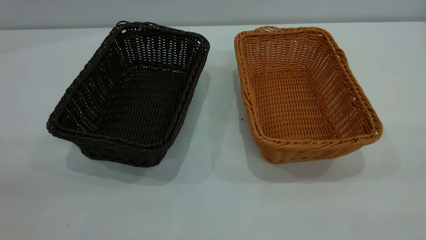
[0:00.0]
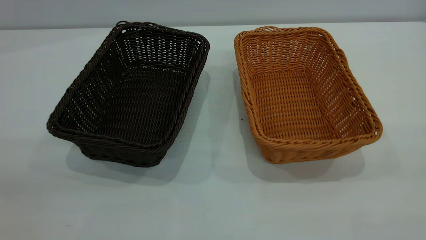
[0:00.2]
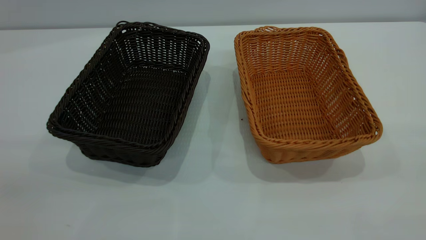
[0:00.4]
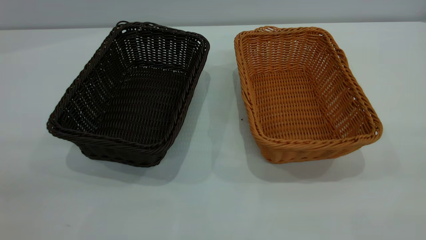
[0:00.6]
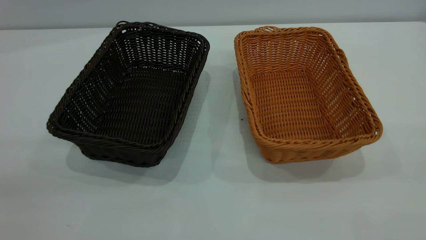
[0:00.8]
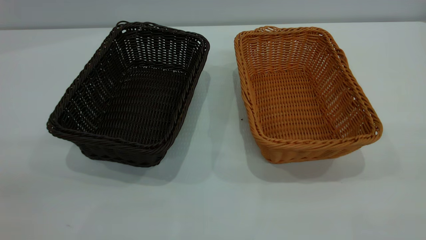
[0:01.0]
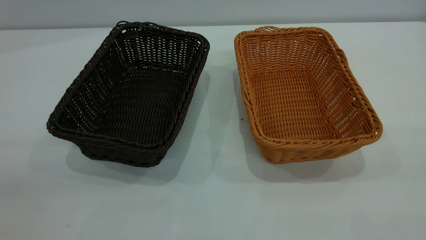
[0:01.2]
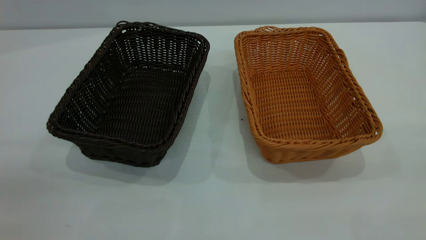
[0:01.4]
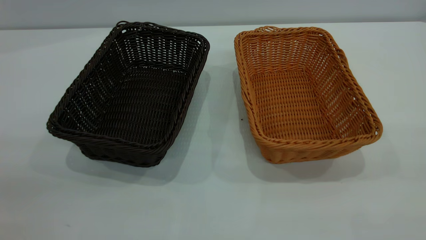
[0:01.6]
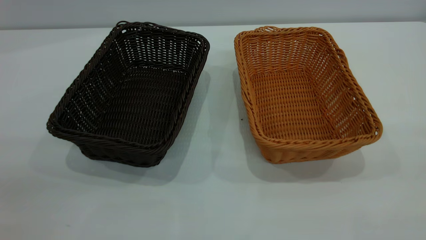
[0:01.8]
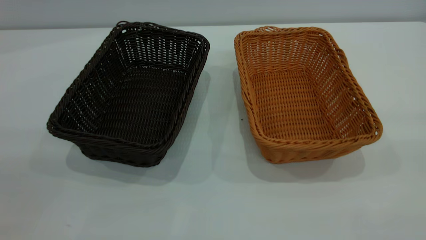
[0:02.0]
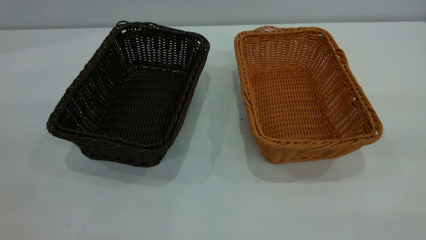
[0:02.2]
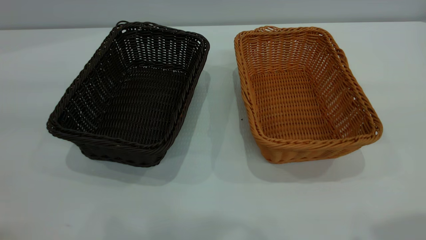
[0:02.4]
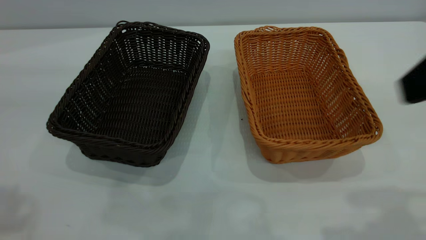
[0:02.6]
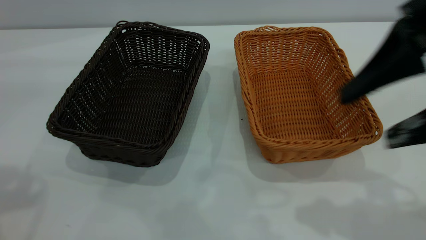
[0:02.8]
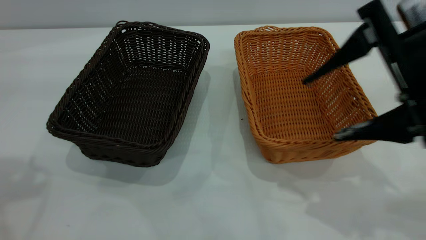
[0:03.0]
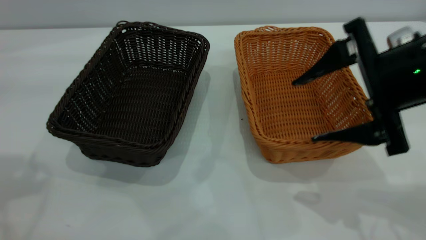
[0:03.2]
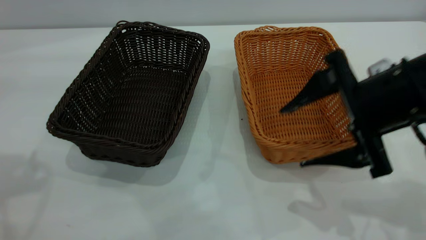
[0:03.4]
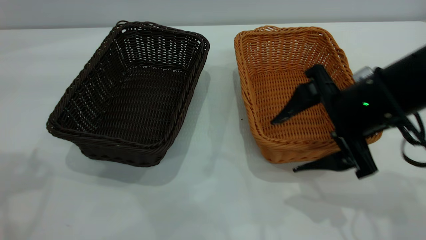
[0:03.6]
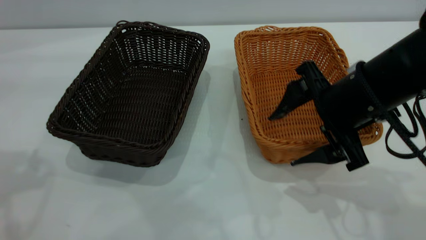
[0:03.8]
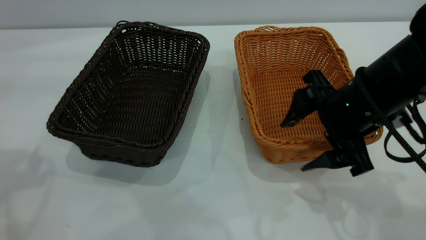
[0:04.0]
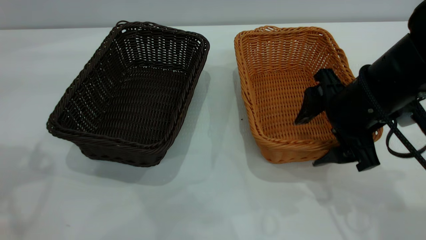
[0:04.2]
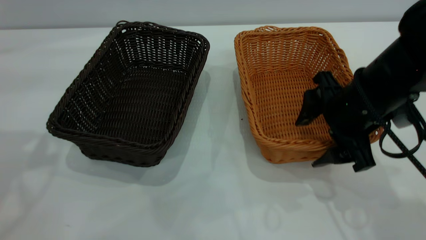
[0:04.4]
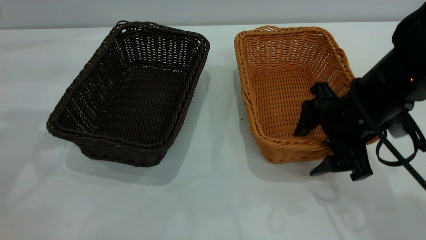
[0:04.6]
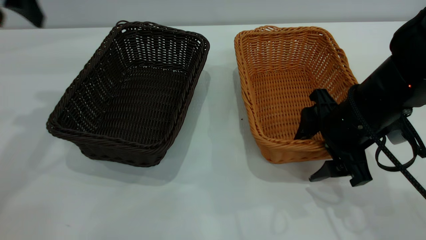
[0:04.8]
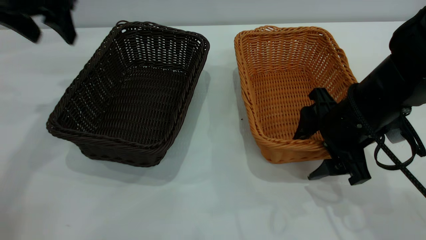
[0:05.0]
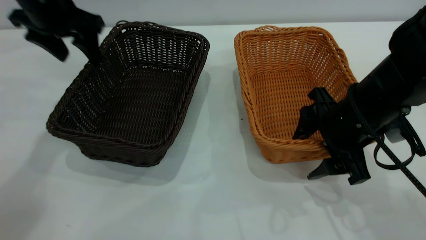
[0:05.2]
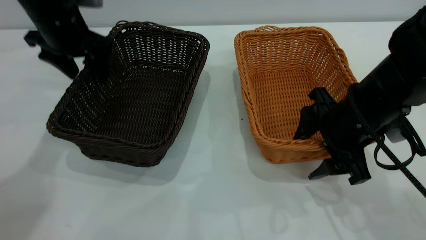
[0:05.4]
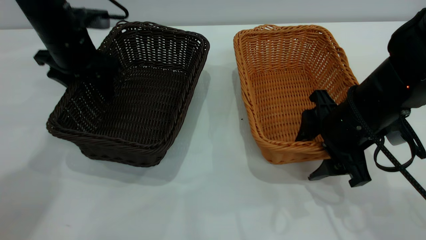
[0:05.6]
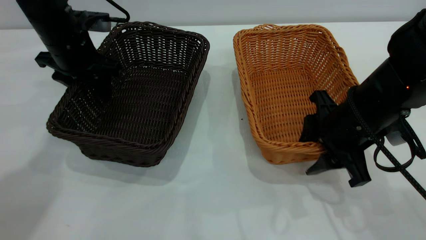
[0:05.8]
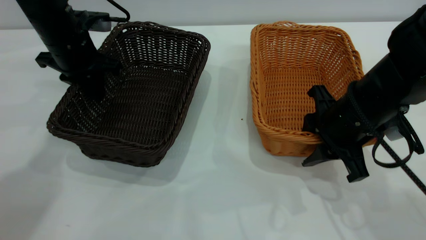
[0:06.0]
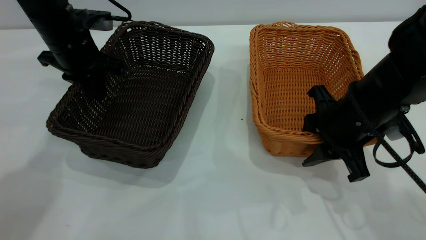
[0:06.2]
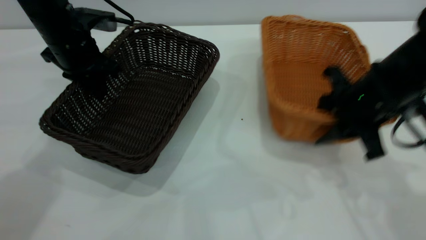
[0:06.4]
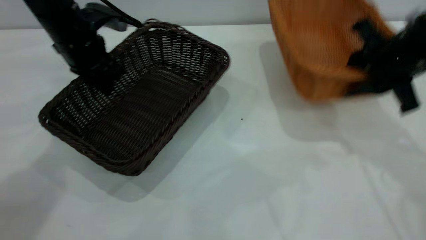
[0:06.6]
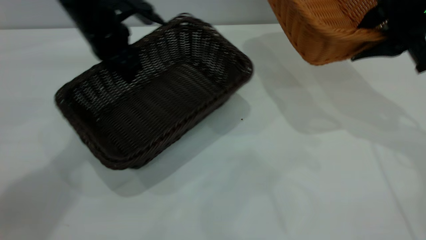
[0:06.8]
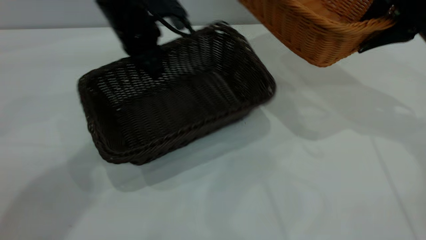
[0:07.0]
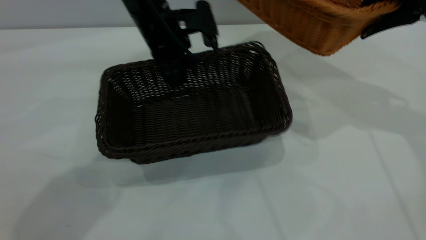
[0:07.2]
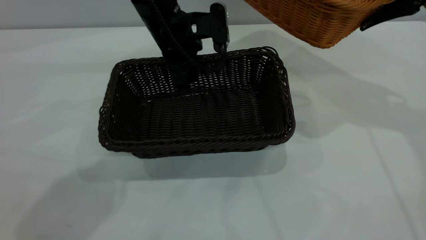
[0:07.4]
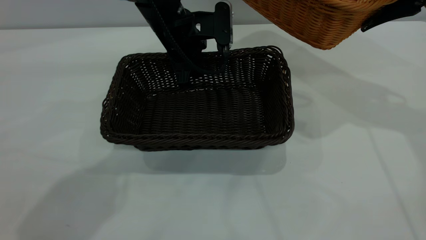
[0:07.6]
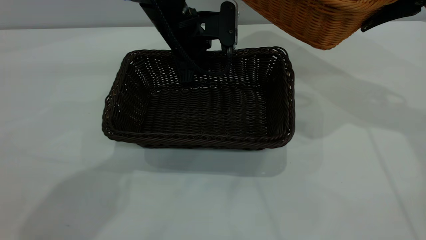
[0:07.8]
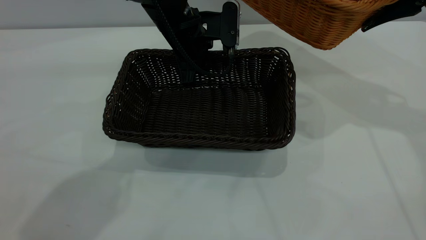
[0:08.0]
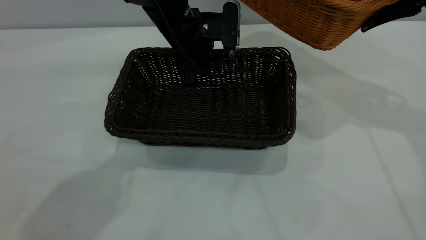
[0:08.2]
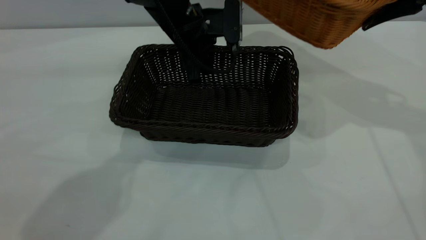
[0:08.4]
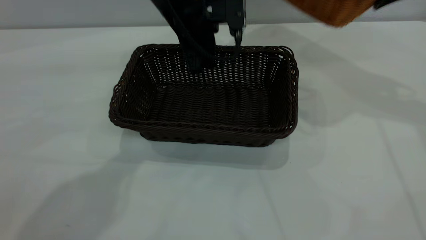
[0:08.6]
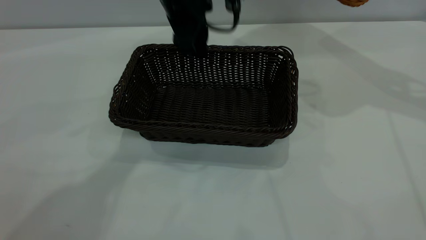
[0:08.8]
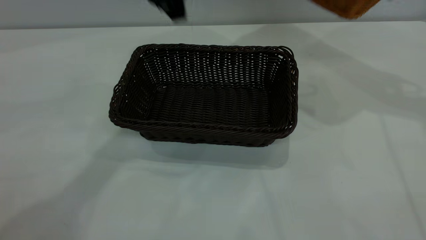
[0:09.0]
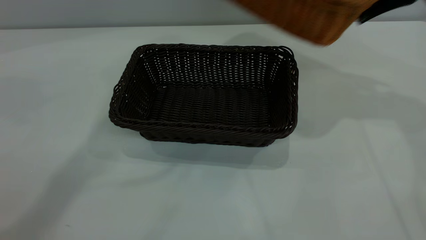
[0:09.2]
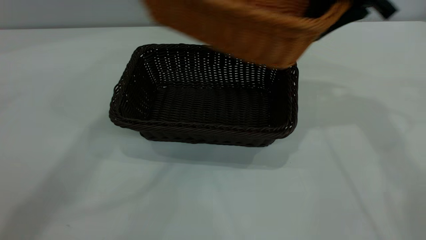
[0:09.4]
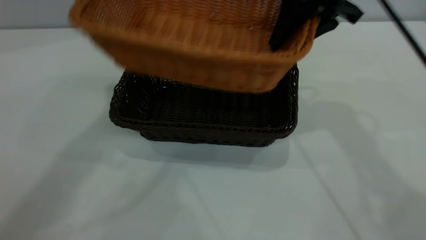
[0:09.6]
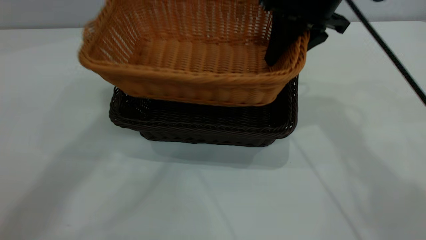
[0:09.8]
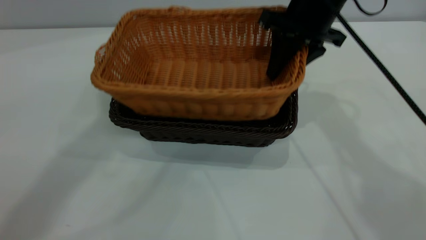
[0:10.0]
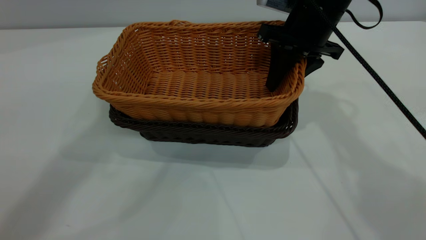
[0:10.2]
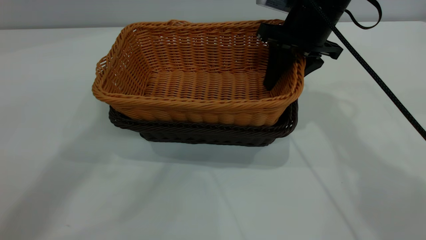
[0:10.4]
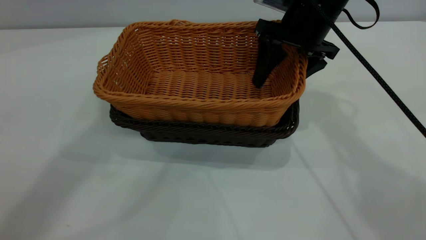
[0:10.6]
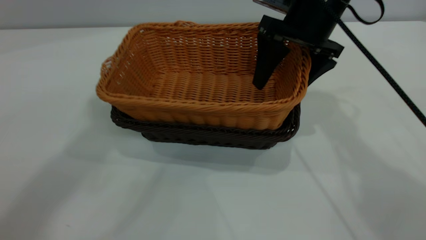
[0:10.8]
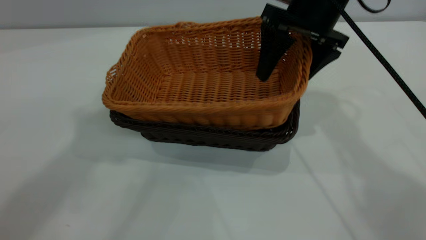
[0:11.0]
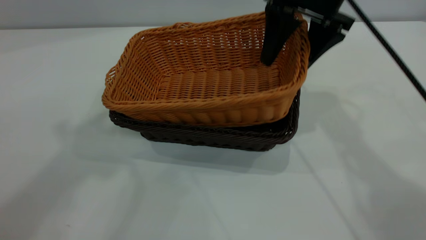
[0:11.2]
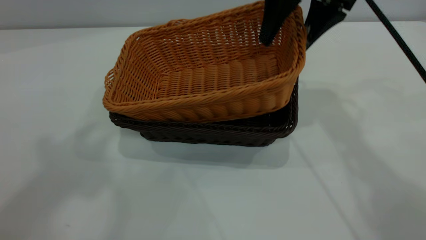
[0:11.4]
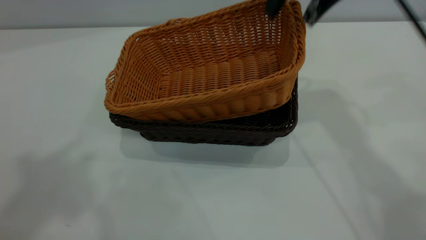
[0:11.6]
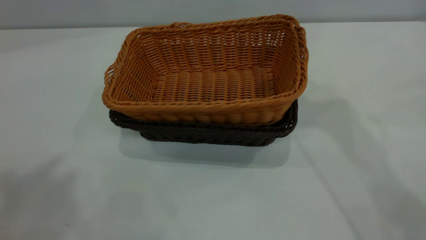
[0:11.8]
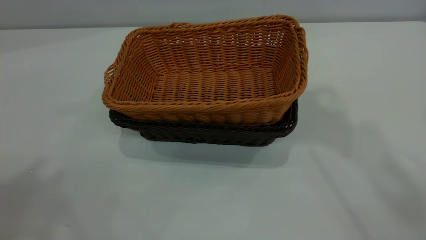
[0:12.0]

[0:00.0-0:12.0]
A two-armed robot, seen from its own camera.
Task of the whole recording: the left gripper grasp the black basket and place it in the center of the table, the right gripper grasp the brown basket and place it inside the black one.
Step, 0:00.0 to 0:06.6: Pick up the light basket with the right gripper.
Step, 0:07.0 to 0:08.8: Move the dark basket to the center of view.
Step, 0:09.2 to 0:11.6: Place the light basket on the dark basket.
0:00.0 to 0:01.6: Both grippers stay about where they are.
0:01.6 to 0:03.0: The right gripper is displaced forward and downward by about 25 cm.
0:03.0 to 0:04.4: The right gripper is displaced downward and forward by about 10 cm.
0:04.4 to 0:06.0: The right gripper closes up. Meanwhile the left gripper travels downward, forward and to the right by approximately 25 cm, and closes.
0:06.0 to 0:07.6: The left gripper goes some 15 cm to the right. The right gripper travels upward, forward and to the right by approximately 20 cm.
0:07.6 to 0:09.0: The left gripper moves upward, about 15 cm, and opens its fingers.
0:09.0 to 0:10.4: The right gripper moves to the left and downward, about 20 cm. Meanwhile the left gripper goes about 20 cm upward and backward.
0:10.4 to 0:12.0: The left gripper heads backward, upward and to the left, covering roughly 20 cm; the right gripper is displaced upward by about 30 cm, and opens its fingers.
